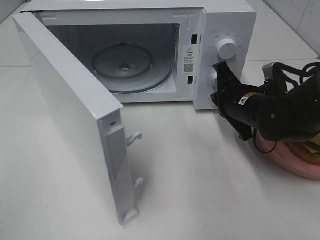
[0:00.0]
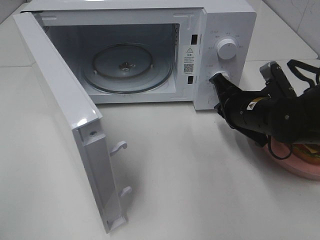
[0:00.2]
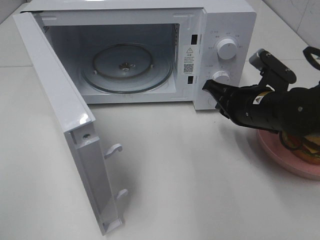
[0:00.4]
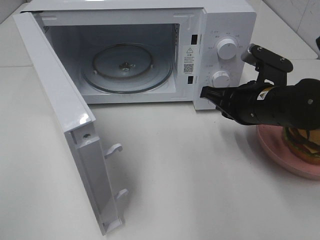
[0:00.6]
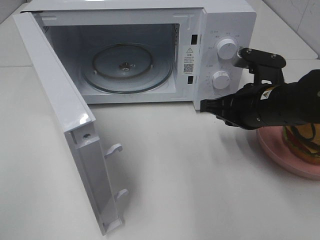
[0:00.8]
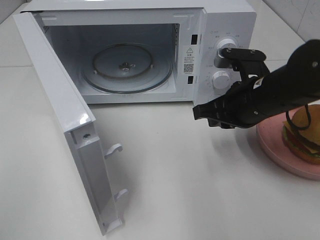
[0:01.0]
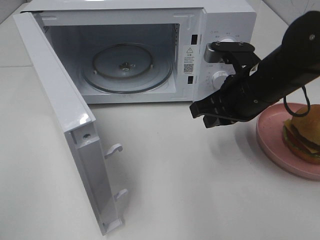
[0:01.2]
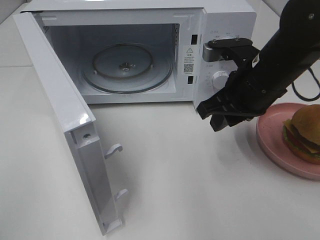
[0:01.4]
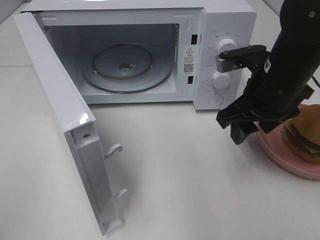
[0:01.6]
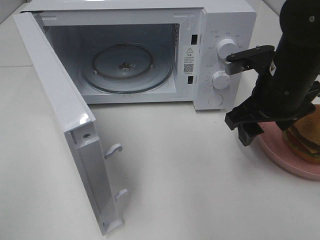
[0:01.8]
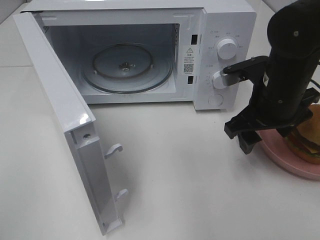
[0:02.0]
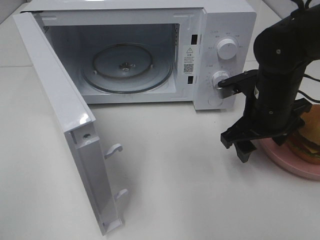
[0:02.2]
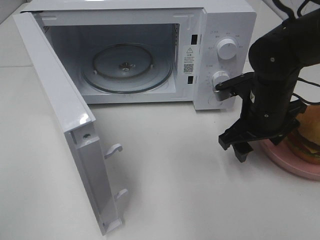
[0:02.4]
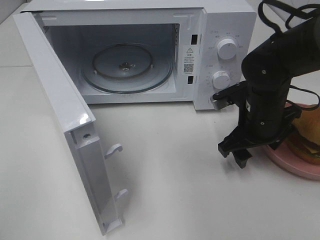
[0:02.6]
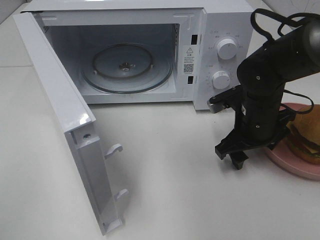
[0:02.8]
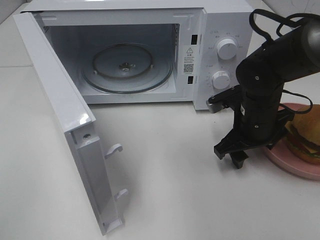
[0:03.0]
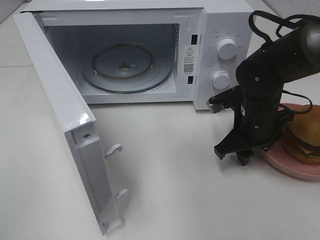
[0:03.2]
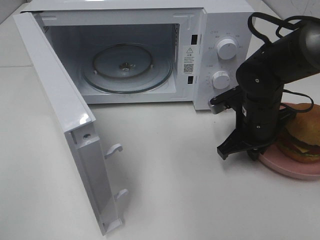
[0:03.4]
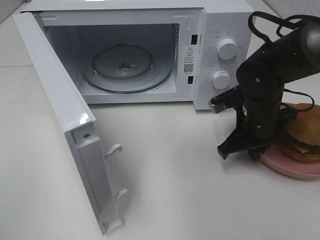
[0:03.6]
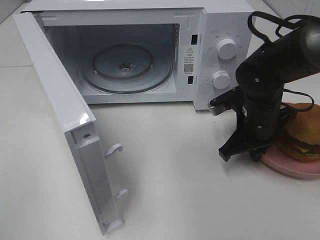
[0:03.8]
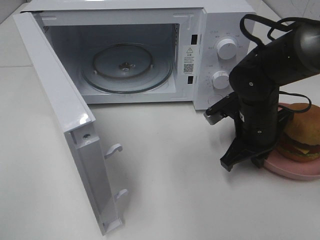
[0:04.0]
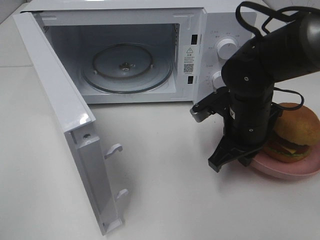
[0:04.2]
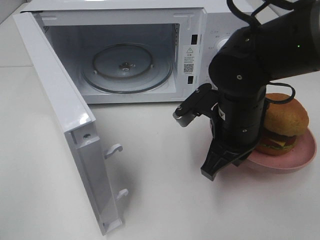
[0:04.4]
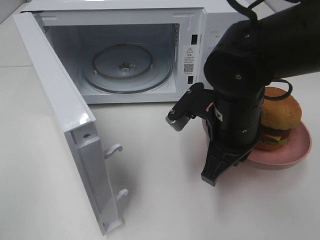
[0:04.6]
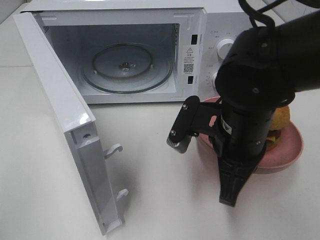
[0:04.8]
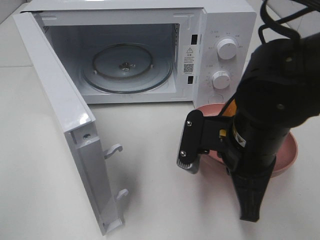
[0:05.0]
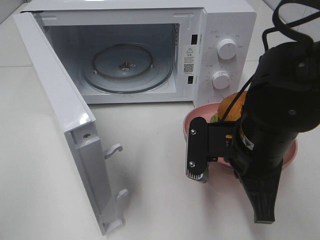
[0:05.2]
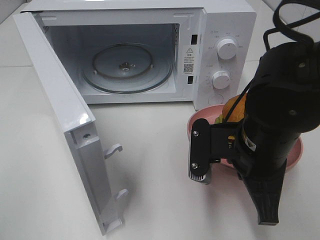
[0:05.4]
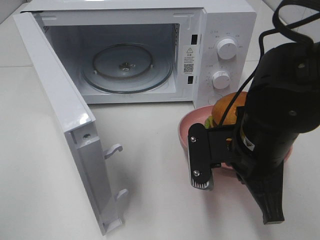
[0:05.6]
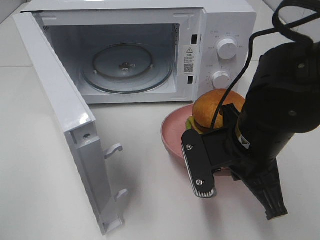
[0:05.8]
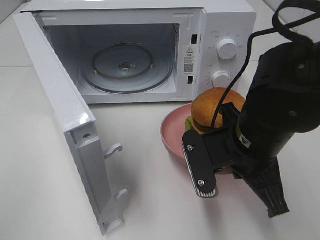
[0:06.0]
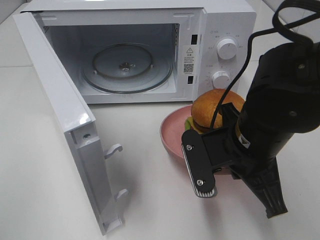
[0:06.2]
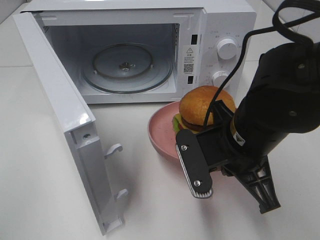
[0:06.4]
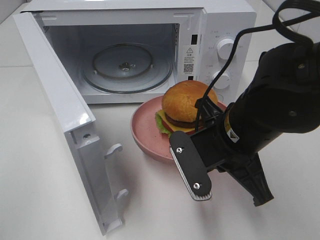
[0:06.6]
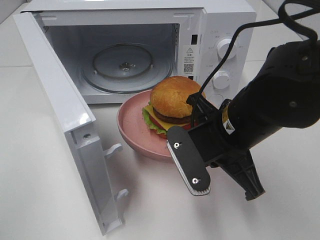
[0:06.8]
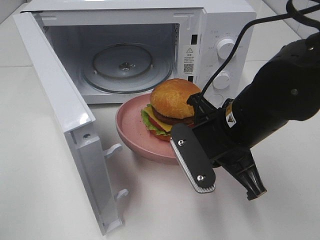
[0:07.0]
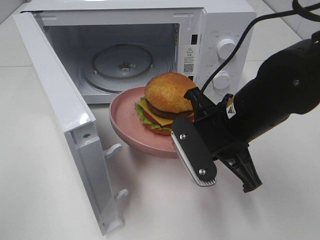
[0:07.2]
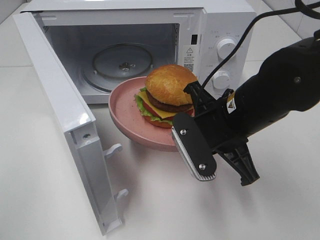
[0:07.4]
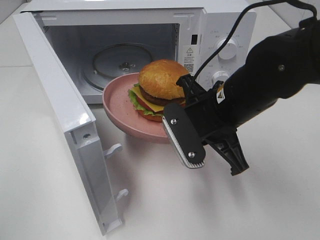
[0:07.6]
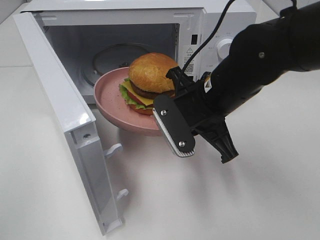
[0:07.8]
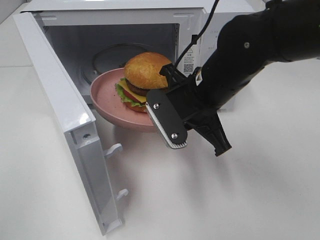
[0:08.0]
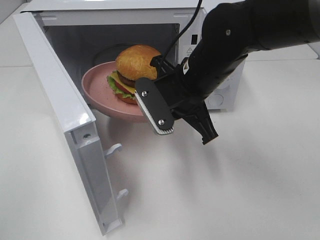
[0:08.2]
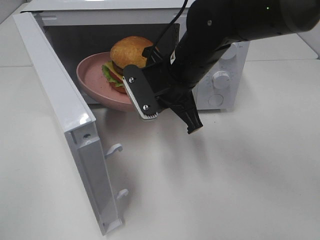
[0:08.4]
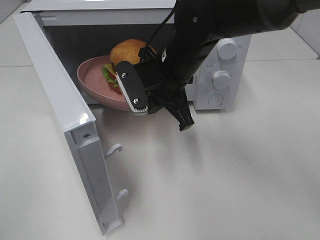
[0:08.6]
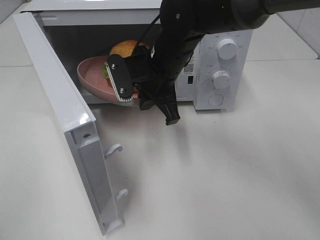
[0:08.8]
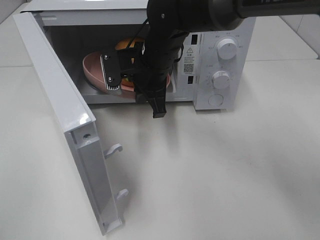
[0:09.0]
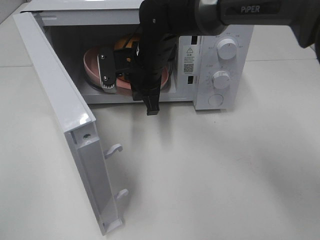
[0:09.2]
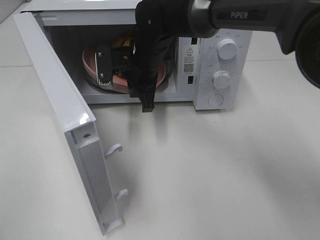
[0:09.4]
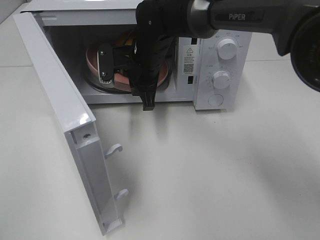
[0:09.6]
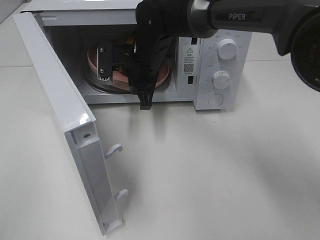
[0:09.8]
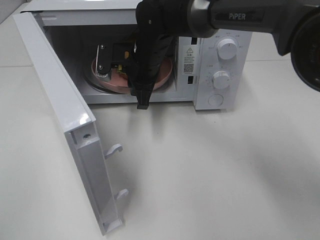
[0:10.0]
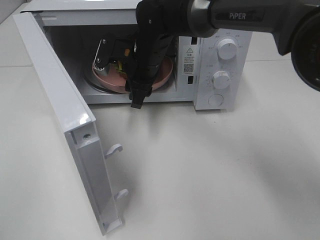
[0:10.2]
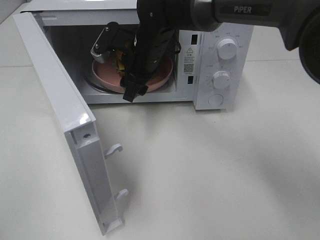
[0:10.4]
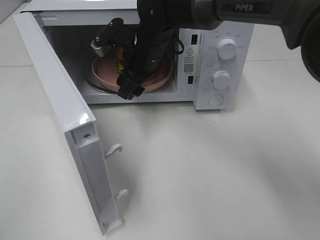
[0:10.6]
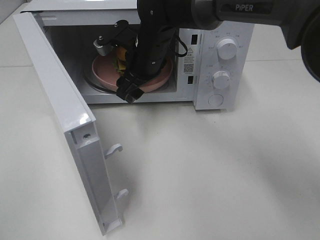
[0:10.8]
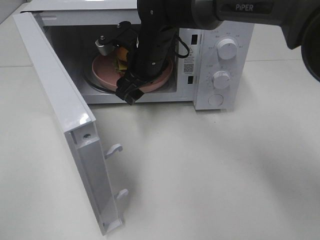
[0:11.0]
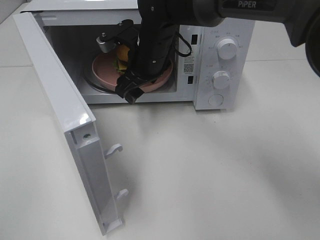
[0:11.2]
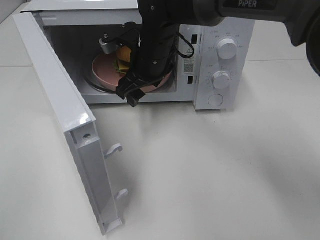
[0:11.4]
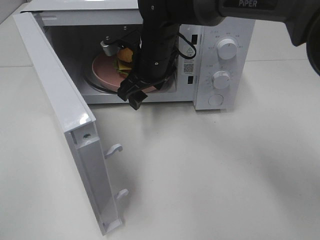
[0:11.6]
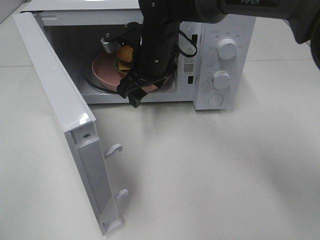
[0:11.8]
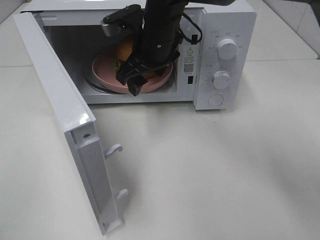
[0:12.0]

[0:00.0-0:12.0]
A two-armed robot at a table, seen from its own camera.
Task of the whole recording: Heat the burger.
Step, 0:00.0 to 0:03.4: Right hand: grab the plate with the hamburger.
Step, 0:03.6 to 0:10.2: Right hand: place the plate in the microwave.
0:00.0 to 0:01.6: The right gripper travels upward by roughly 10 cm, and opens its fingers.
0:01.6 to 0:03.0: The right gripper is displaced downward by roughly 10 cm.
0:03.0 to 0:04.4: The right gripper shifts about 10 cm to the left, backward and upward, and closes its fingers.
0:04.4 to 0:06.0: The right gripper travels backward by approximately 5 cm.
0:06.0 to 0:07.6: The right gripper changes place by roughly 5 cm.
0:07.6 to 0:09.0: The right gripper is displaced forward and to the left by about 15 cm.
0:09.0 to 0:10.4: The right gripper opens its fingers.

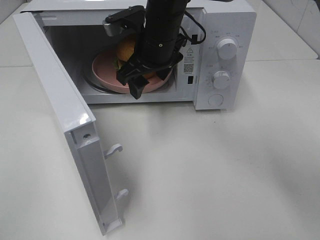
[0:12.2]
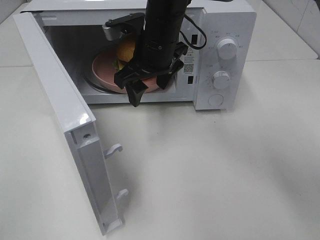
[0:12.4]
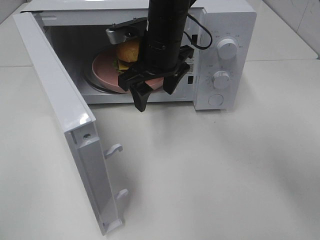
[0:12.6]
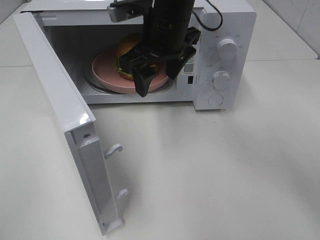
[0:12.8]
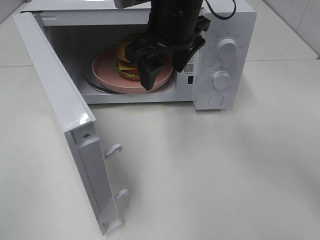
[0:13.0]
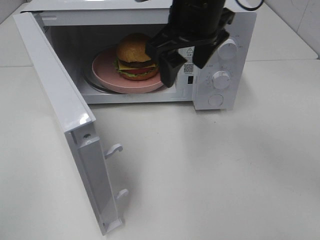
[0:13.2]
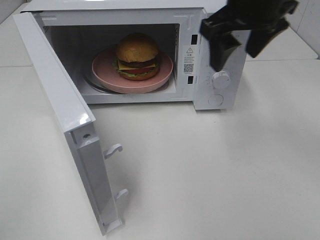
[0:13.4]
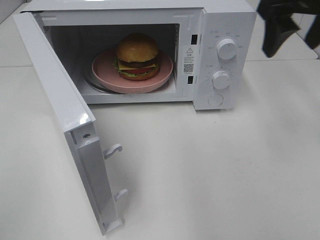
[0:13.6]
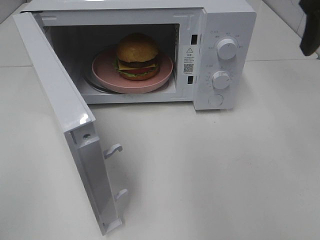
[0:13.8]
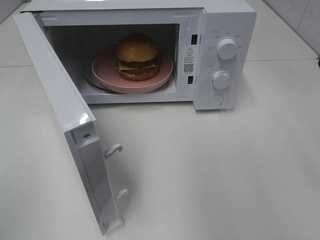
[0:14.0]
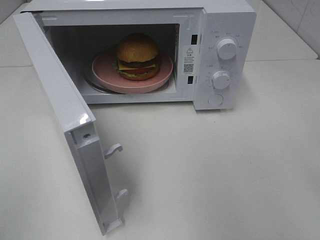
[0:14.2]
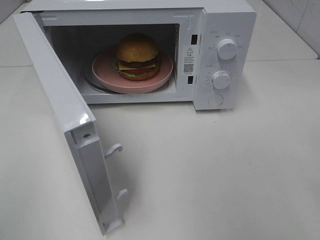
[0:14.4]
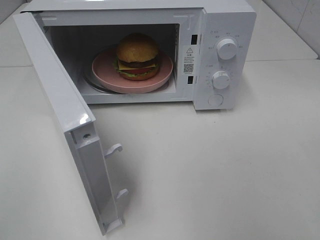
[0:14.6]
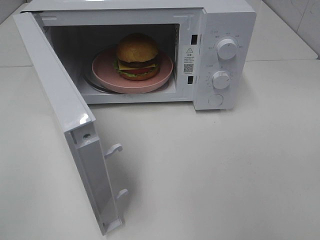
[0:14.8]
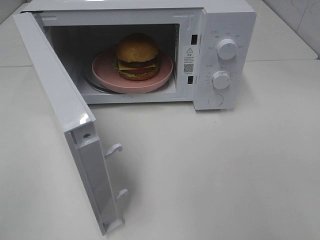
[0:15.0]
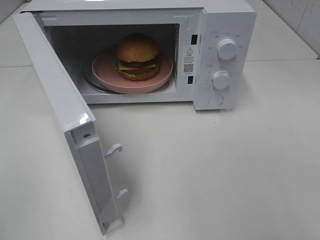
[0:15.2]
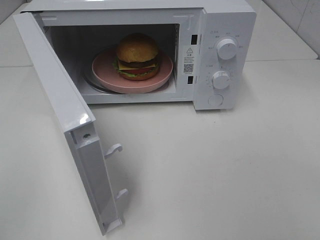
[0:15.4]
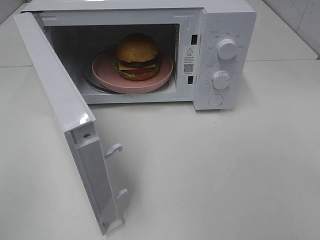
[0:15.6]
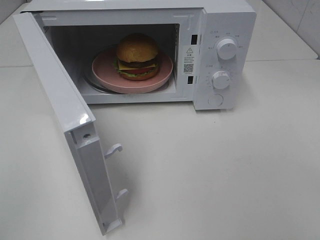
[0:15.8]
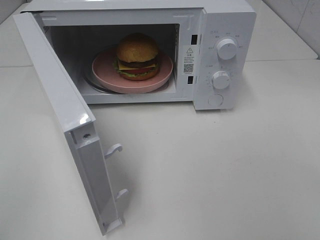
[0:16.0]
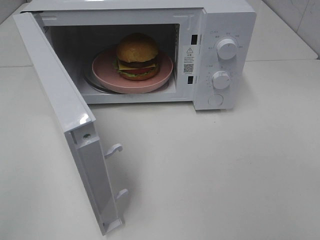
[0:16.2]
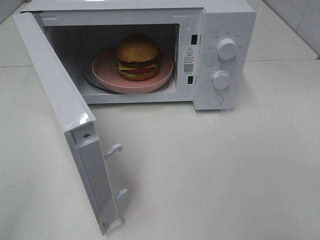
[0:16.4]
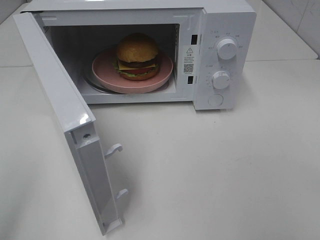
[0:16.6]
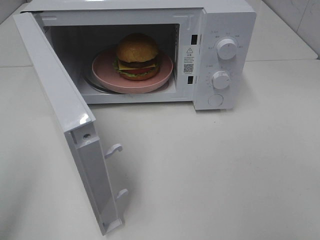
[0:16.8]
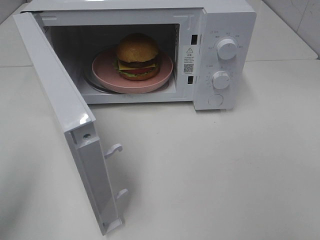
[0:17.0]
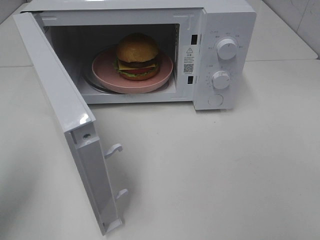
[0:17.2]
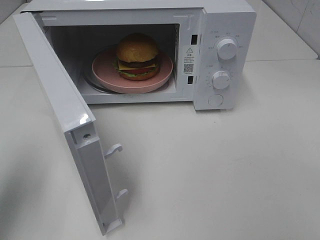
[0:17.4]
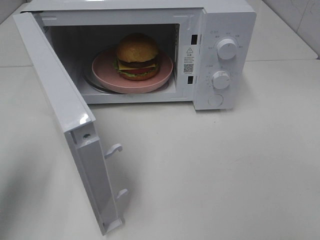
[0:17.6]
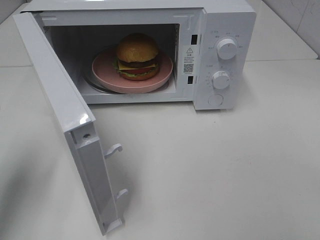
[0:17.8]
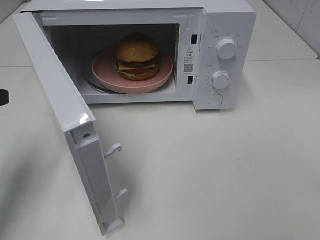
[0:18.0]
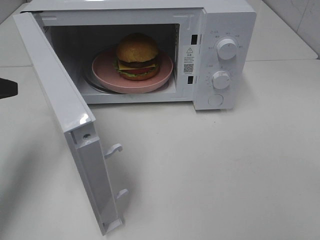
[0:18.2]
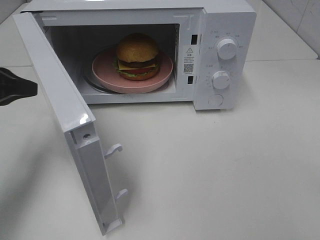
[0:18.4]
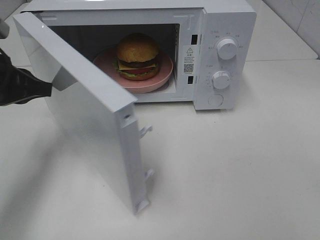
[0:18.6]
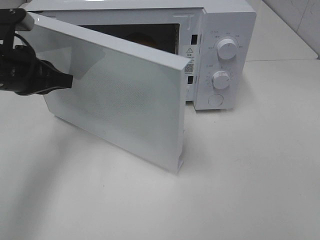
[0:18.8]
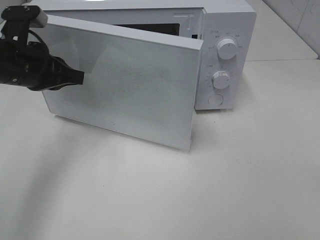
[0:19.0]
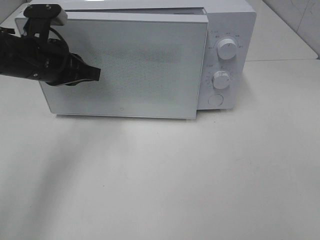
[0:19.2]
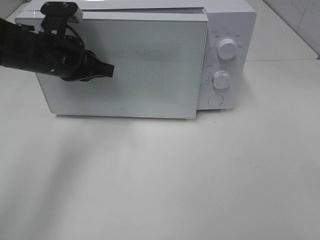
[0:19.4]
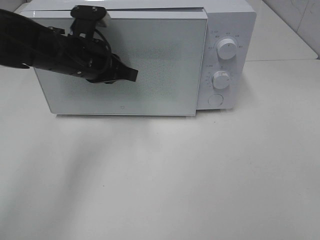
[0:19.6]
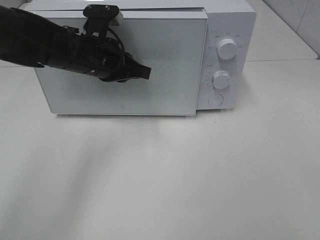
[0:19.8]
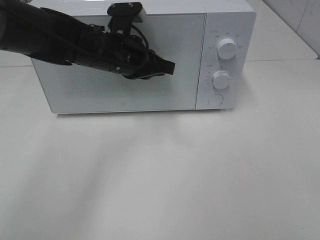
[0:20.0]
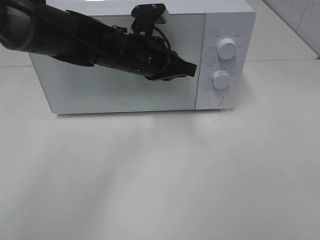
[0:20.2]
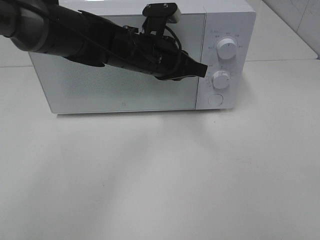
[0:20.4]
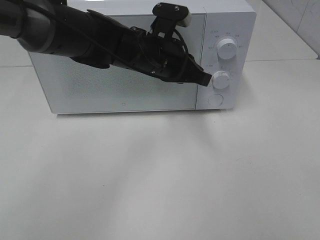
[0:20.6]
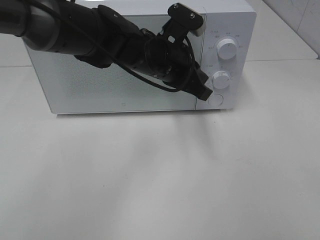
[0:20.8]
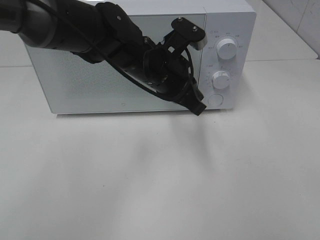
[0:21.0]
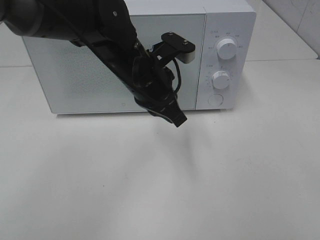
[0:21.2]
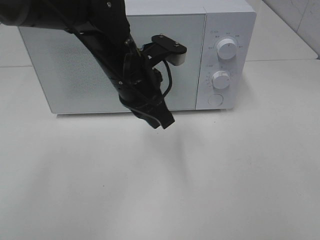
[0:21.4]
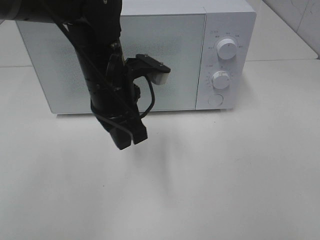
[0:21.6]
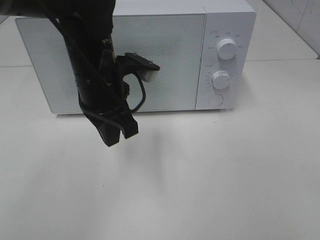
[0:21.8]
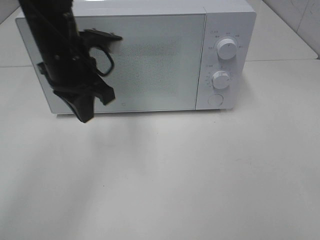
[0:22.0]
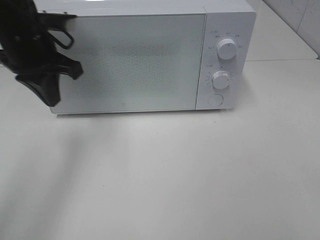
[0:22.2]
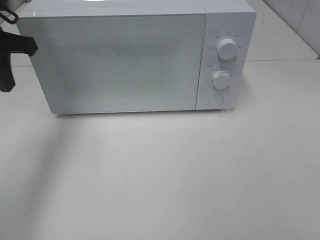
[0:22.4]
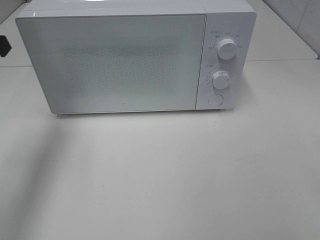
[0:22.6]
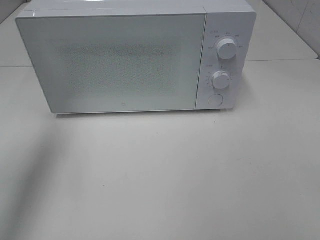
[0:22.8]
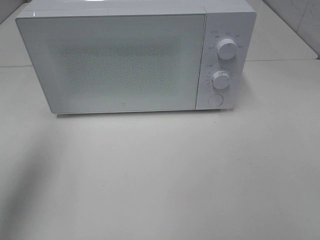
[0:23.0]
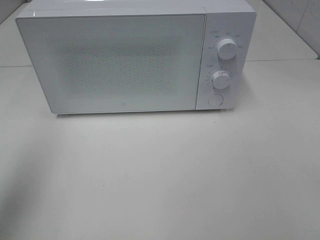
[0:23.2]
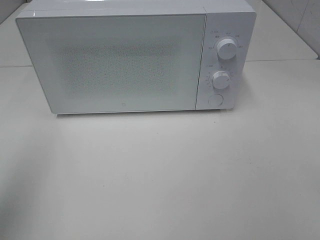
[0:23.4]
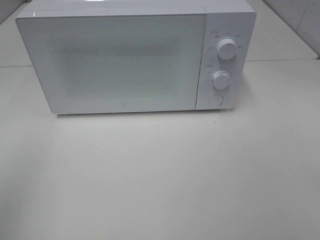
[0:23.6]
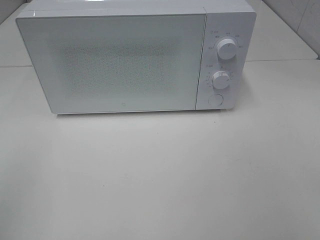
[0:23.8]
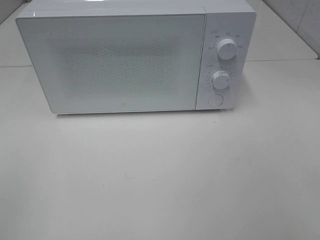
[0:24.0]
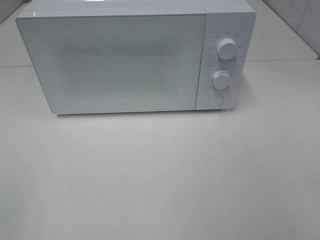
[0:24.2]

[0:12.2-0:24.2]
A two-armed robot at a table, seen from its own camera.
Task of the whole recording: Heat the burger.
Step, 0:12.2 to 0:20.2: Left hand: close the microwave door.
0:12.2 to 0:13.8: The right gripper goes about 30 cm to the right, upward and backward.
0:13.8 to 0:15.2: The right gripper goes some 25 cm backward.
0:16.6 to 0:18.2: The left gripper heads forward, covering about 20 cm.
0:18.2 to 0:19.8: The left gripper moves to the right and forward, roughly 20 cm.
0:19.8 to 0:21.2: The left gripper shifts about 10 cm to the right.
0:21.2 to 0:22.6: The left gripper is displaced to the left and upward by roughly 25 cm.
0:22.6 to 0:24.2: The left gripper moves backward, some 30 cm.
